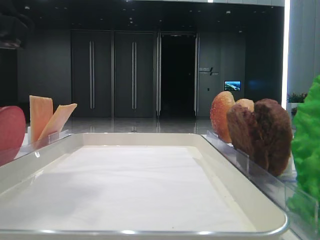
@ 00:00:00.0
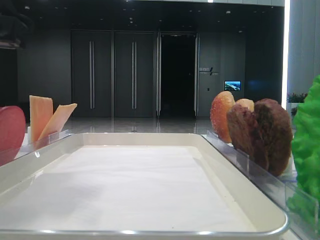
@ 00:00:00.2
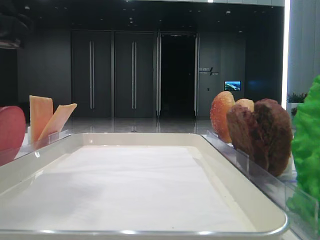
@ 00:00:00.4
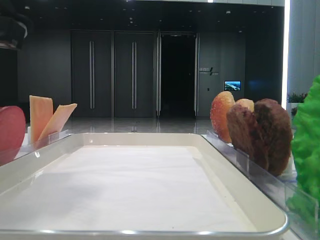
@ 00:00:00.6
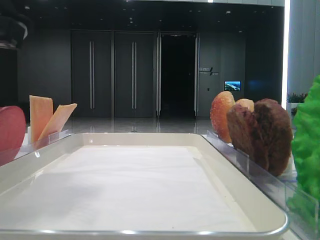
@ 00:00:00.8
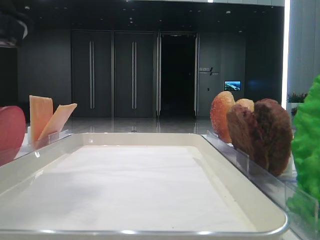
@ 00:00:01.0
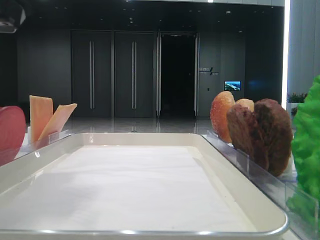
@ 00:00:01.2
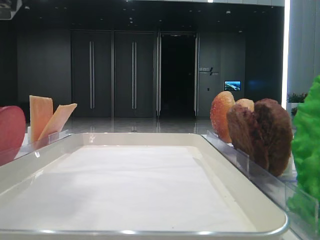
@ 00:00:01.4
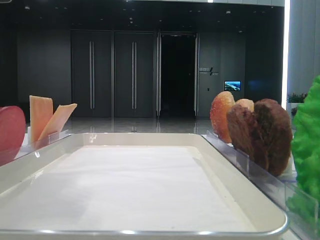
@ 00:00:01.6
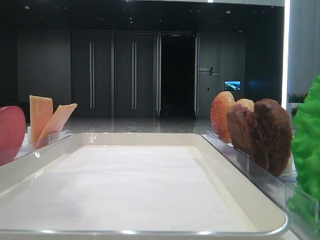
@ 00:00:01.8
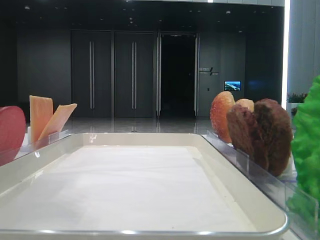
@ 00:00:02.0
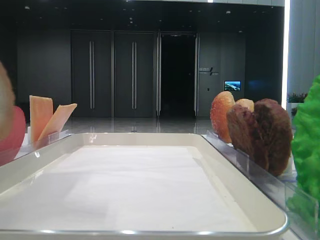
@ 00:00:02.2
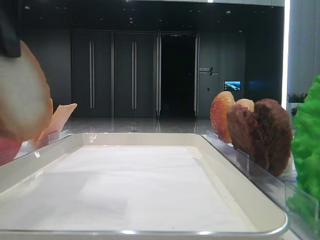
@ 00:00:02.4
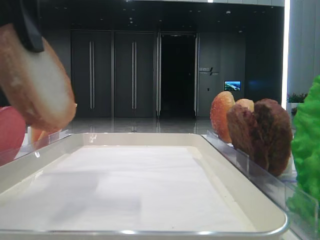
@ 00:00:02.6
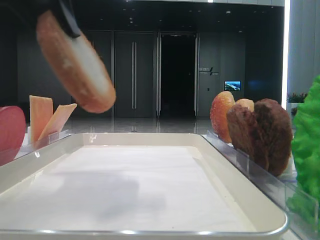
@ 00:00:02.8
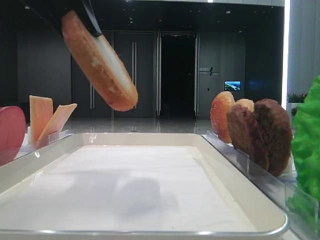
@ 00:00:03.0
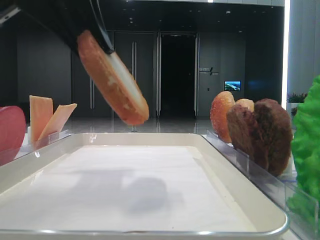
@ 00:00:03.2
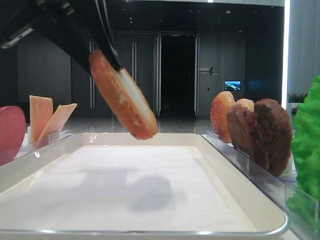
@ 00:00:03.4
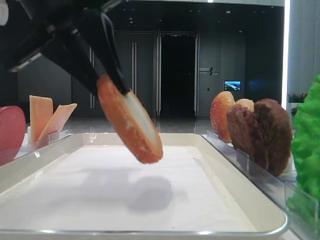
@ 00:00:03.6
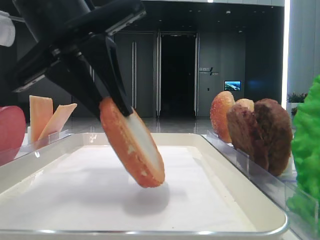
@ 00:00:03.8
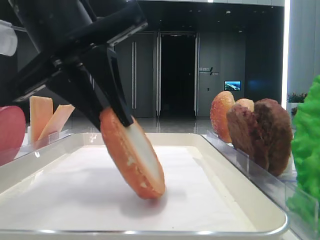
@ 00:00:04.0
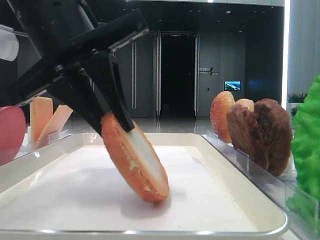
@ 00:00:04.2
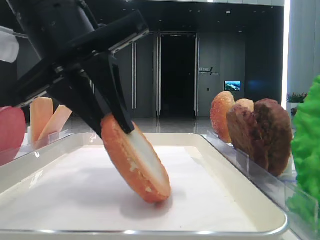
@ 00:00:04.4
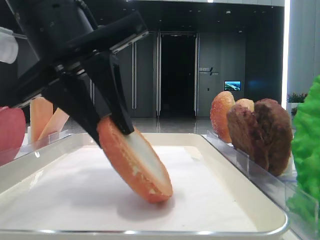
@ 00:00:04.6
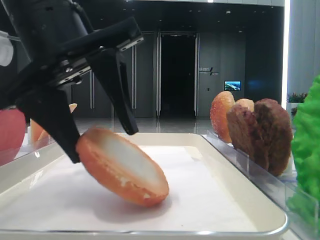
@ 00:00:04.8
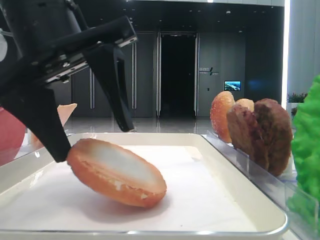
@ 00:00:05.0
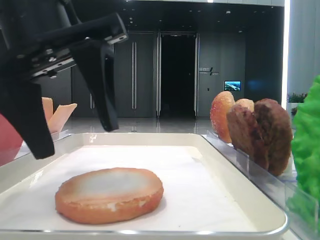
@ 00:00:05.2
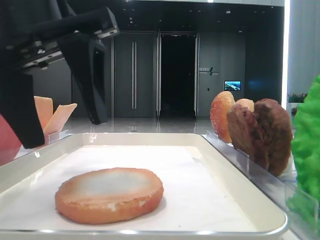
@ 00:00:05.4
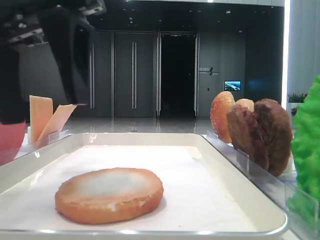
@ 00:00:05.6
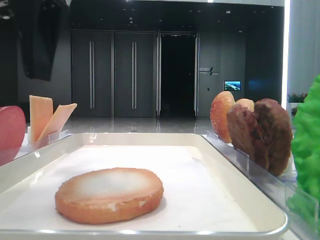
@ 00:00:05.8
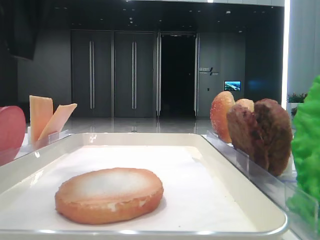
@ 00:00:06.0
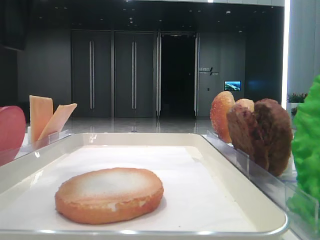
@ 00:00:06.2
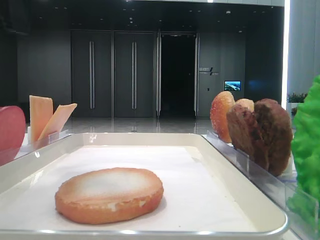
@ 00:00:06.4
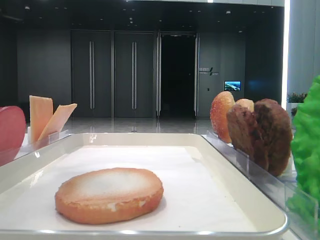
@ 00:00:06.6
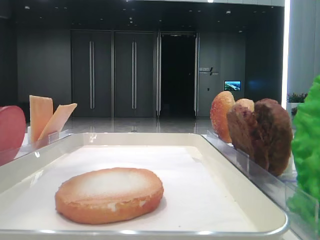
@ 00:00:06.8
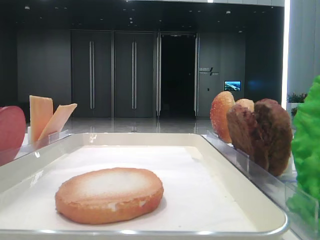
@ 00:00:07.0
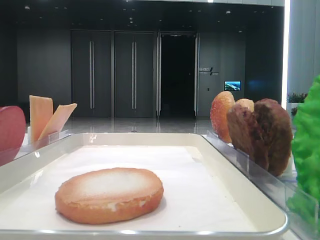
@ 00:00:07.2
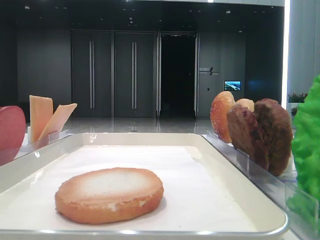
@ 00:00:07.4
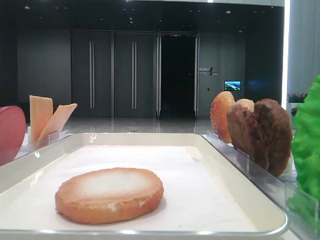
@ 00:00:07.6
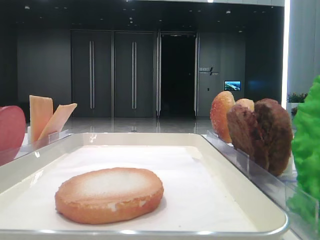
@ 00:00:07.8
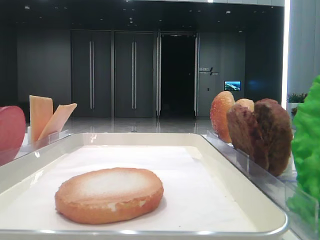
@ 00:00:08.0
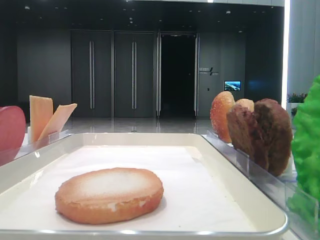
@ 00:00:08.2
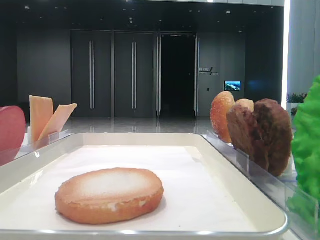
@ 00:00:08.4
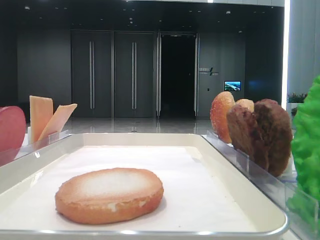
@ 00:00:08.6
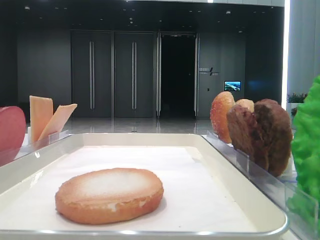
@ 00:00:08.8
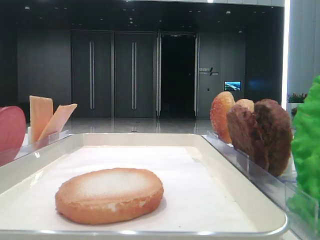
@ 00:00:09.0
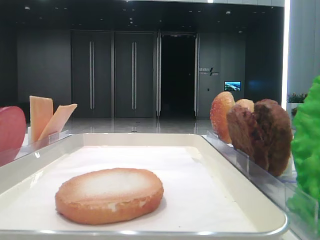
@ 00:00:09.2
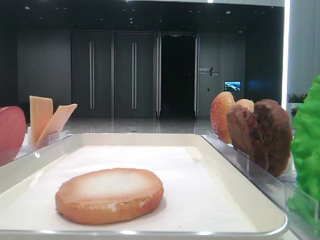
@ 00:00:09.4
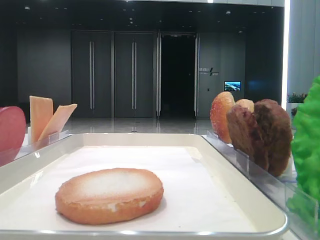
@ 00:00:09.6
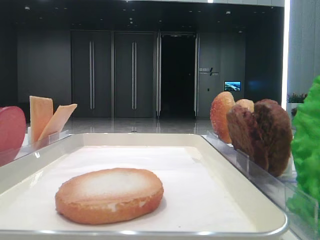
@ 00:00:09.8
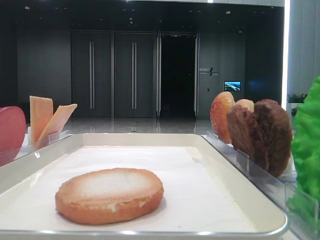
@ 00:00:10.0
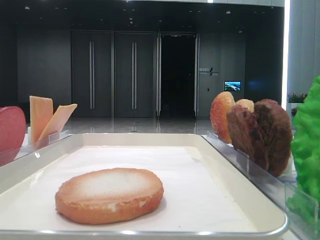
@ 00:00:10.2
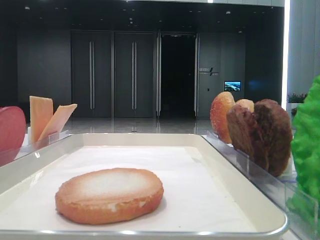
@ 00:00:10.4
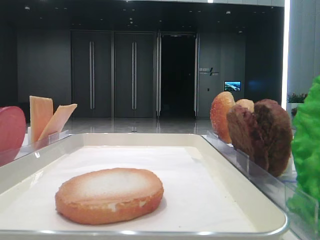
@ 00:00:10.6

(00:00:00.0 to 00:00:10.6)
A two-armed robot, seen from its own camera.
Step, 00:00:02.0 - 00:00:05.0: Place the bread on the tray with the left hand.
00:00:01.6 - 00:00:03.0: The left gripper ends up approximately 5 cm from where it was.
00:00:03.0 - 00:00:04.6: The left gripper heads downward, covering approximately 10 cm.
00:00:04.6 - 00:00:06.0: The left gripper goes roughly 10 cm upward, and opens.
00:00:06.0 - 00:00:07.6: The left gripper shifts roughly 15 cm to the left.

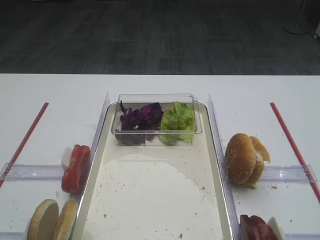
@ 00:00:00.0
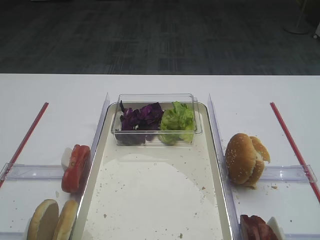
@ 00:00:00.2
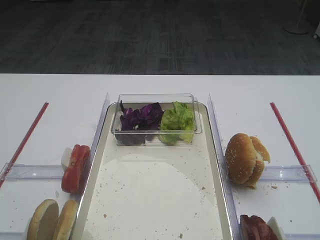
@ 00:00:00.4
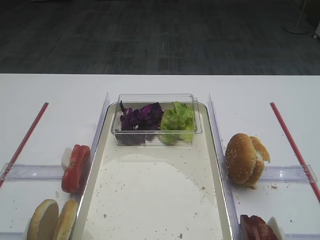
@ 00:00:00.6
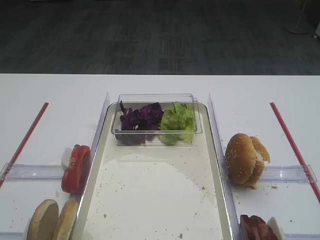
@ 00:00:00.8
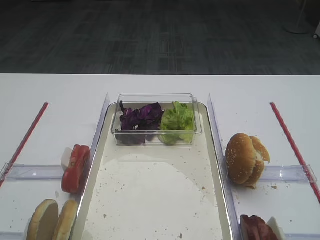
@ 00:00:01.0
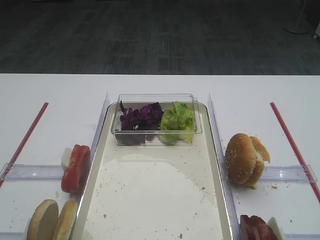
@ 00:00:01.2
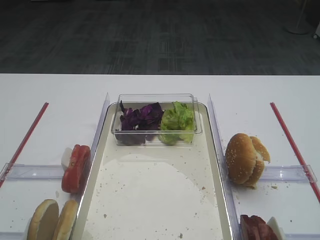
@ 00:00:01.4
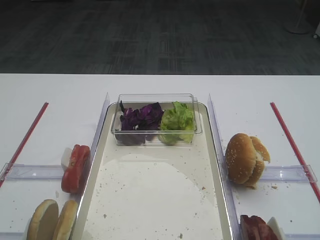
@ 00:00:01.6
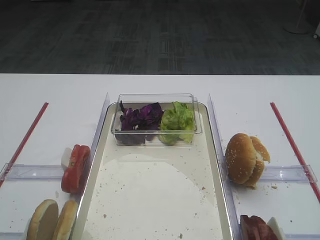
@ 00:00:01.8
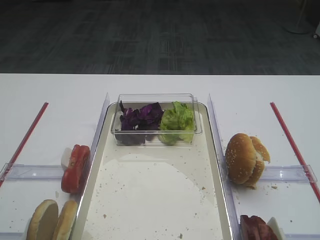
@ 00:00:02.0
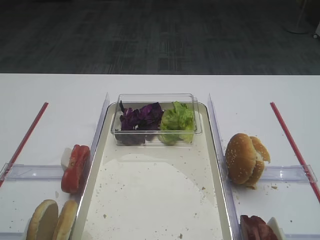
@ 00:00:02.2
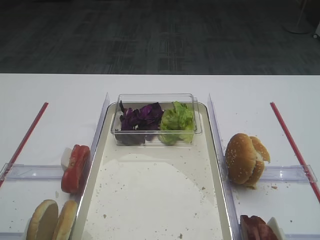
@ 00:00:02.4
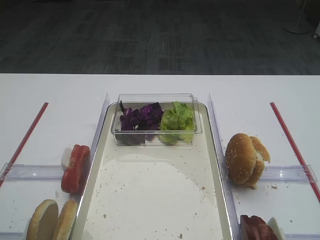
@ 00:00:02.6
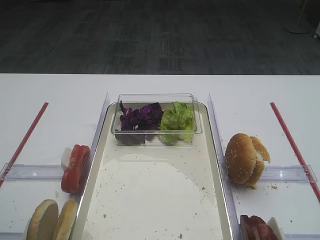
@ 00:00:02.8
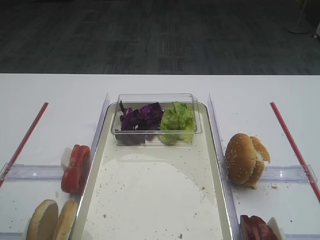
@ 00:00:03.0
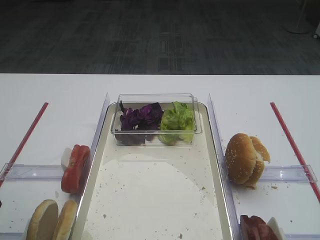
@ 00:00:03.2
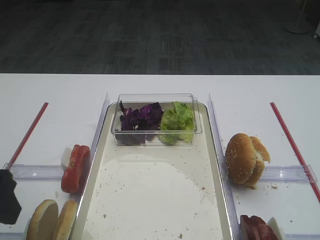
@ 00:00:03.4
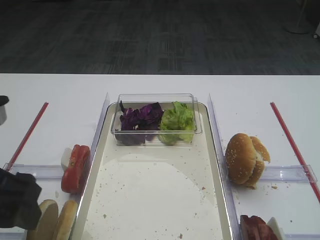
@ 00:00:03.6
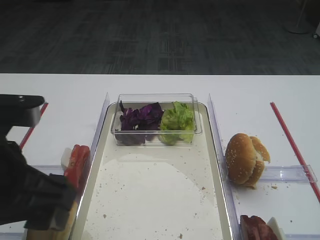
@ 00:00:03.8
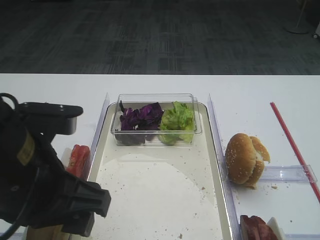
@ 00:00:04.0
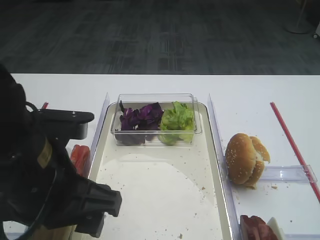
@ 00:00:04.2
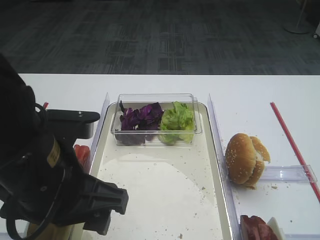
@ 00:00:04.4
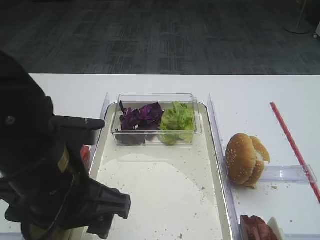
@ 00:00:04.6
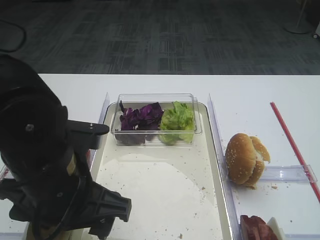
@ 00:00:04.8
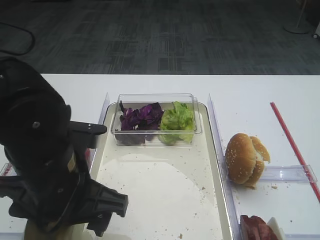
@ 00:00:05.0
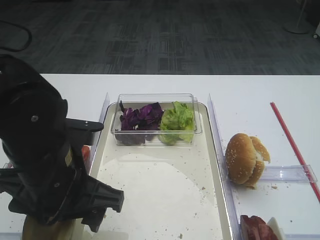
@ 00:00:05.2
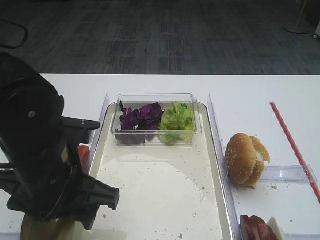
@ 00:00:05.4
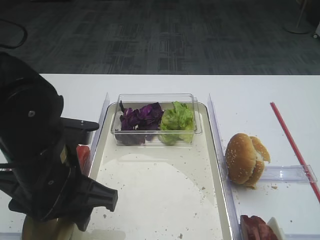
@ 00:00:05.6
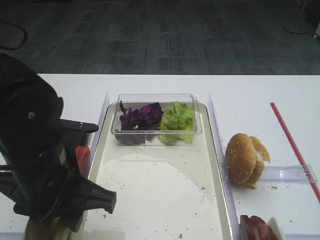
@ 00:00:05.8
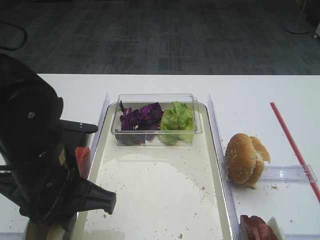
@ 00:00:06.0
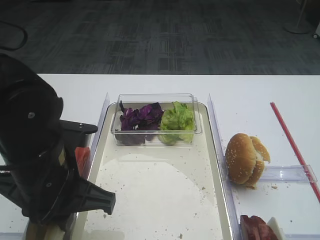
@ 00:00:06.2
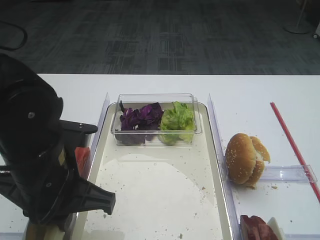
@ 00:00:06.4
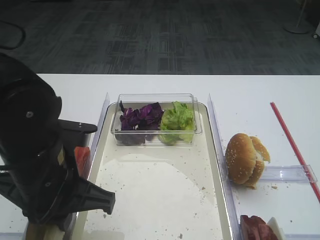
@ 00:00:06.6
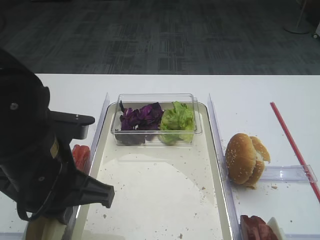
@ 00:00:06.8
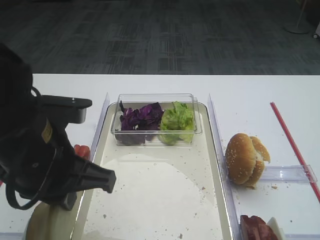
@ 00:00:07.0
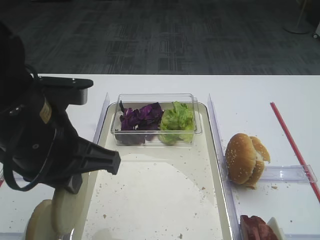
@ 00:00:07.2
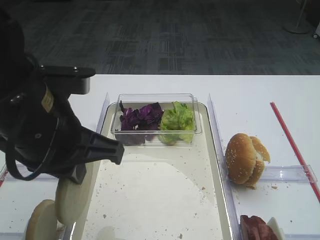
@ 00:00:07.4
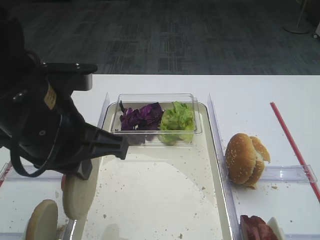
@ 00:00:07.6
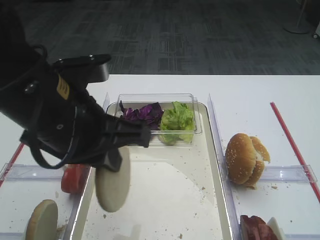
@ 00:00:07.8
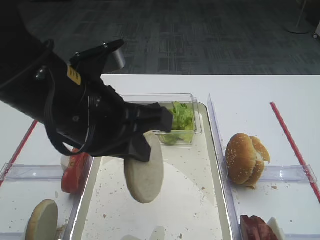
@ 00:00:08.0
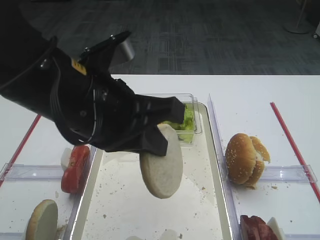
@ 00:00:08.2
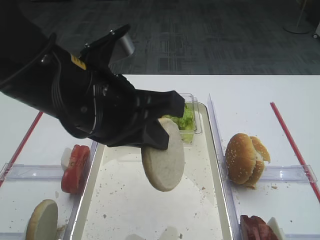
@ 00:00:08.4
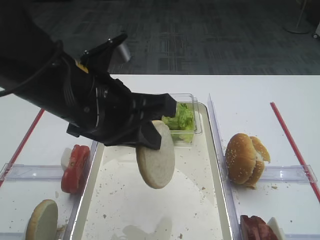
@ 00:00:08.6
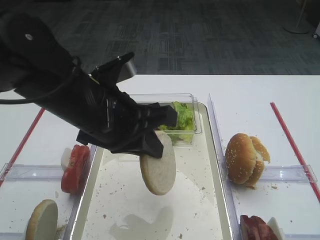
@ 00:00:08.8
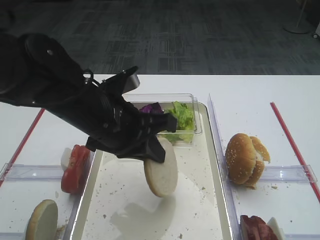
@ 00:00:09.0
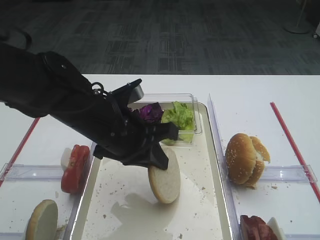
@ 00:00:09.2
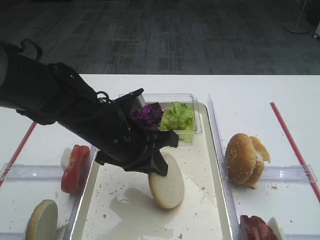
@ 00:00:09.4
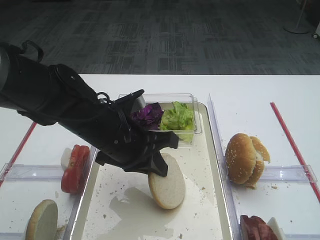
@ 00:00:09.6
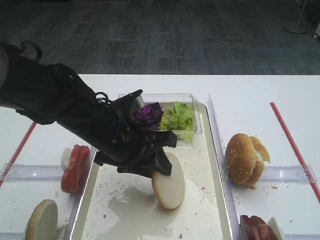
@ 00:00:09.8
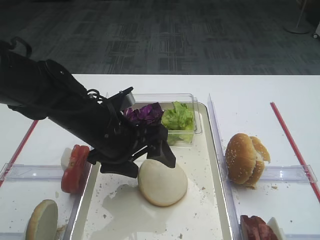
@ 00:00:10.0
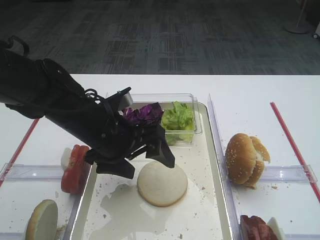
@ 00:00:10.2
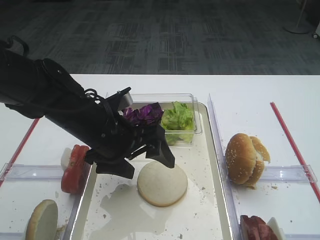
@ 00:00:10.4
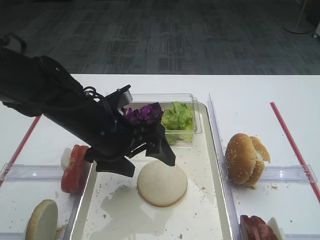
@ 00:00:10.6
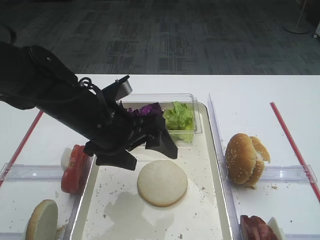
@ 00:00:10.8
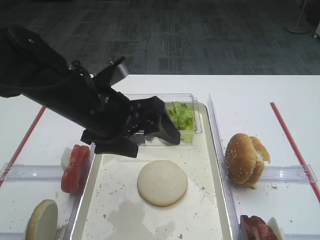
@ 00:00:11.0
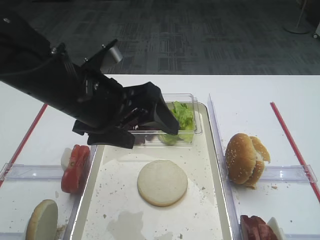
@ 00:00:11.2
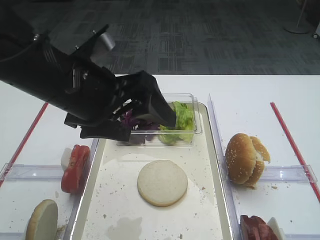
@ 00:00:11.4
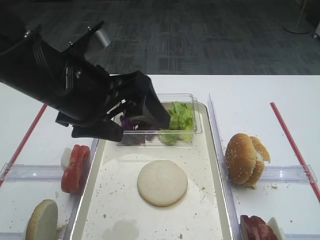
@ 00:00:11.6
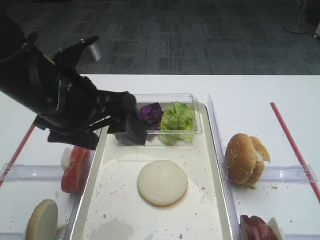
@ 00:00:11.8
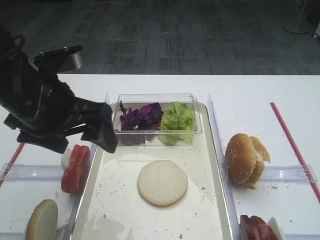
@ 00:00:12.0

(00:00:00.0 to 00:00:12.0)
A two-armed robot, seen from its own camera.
Step, 00:00:00.0 - 00:00:07.0: Pick up the bread slice with the left gripper.
Step, 00:00:07.2 - 00:00:11.0: Place the bread slice on the tray with the left gripper.
00:00:03.0 - 00:00:04.4: The left gripper shifts some 15 cm to the right.
00:00:04.4 - 00:00:06.0: The left gripper closes up.
00:00:06.0 - 00:00:07.6: The left gripper goes about 5 cm upward.
00:00:07.6 - 00:00:09.0: The left gripper shifts approximately 10 cm forward and downward.
00:00:09.0 - 00:00:10.4: The left gripper shifts approximately 5 cm downward, and opens.
00:00:10.4 - 00:00:12.0: The left gripper moves upward and to the left, approximately 10 cm.
